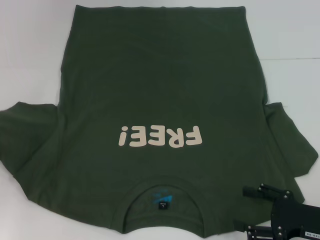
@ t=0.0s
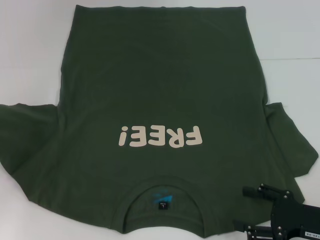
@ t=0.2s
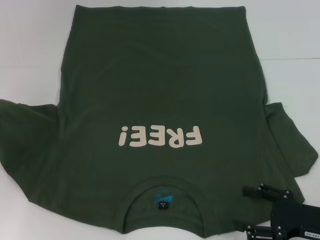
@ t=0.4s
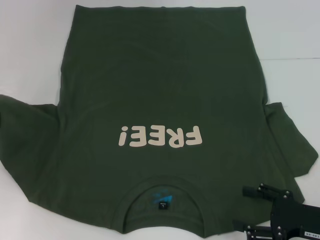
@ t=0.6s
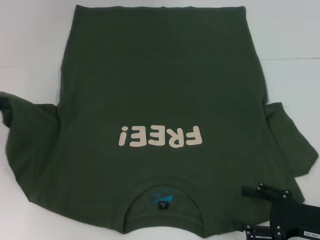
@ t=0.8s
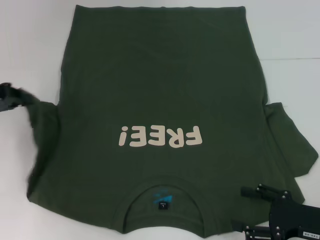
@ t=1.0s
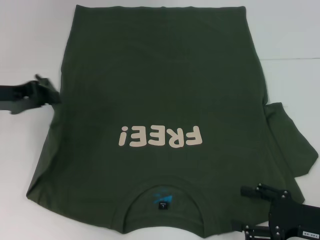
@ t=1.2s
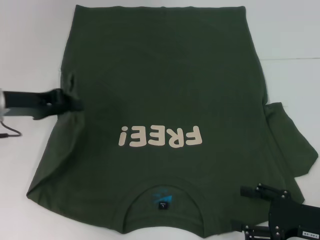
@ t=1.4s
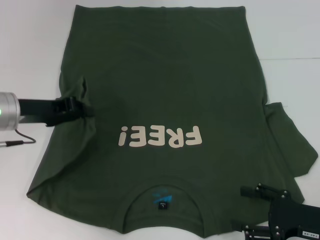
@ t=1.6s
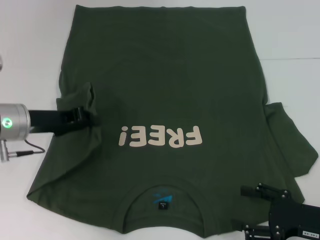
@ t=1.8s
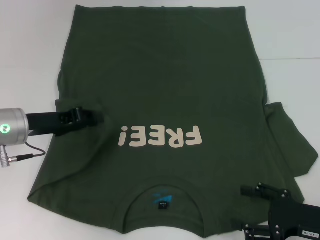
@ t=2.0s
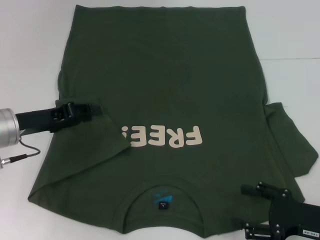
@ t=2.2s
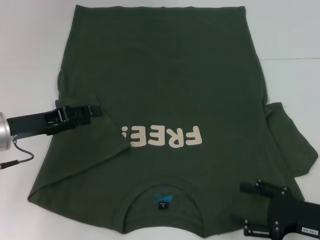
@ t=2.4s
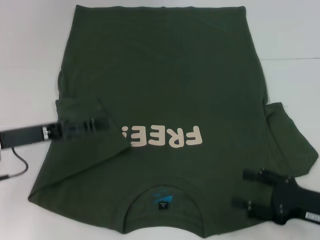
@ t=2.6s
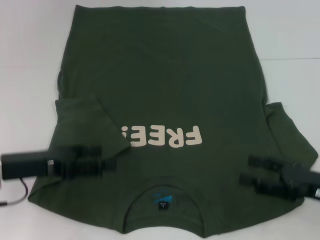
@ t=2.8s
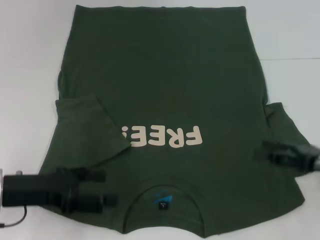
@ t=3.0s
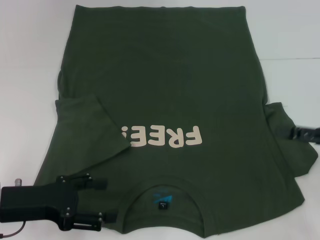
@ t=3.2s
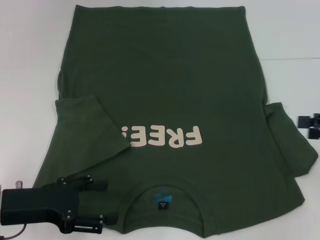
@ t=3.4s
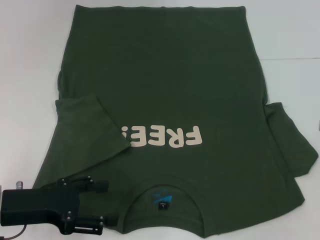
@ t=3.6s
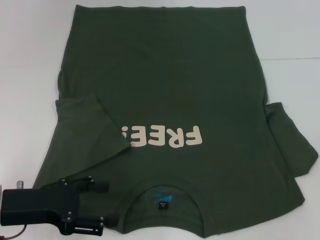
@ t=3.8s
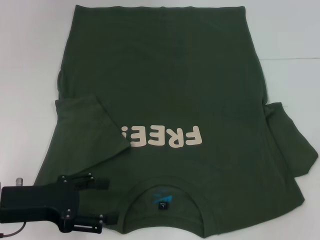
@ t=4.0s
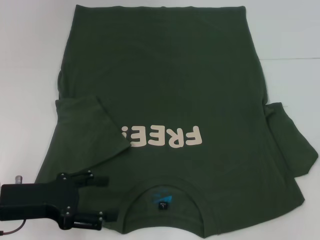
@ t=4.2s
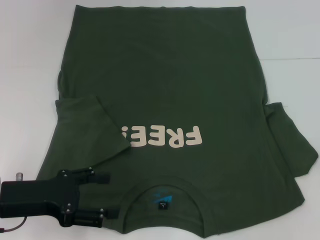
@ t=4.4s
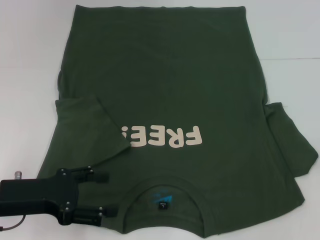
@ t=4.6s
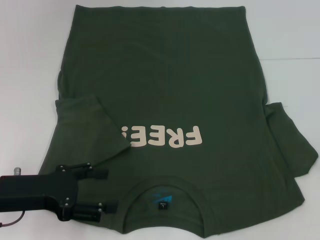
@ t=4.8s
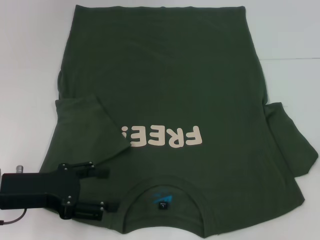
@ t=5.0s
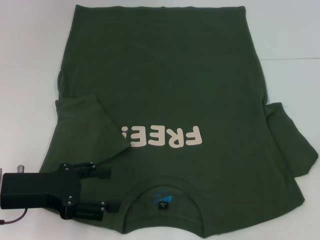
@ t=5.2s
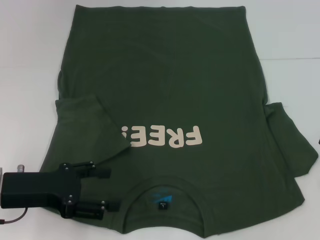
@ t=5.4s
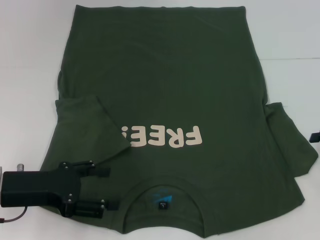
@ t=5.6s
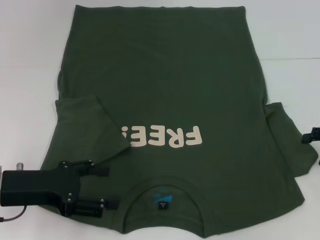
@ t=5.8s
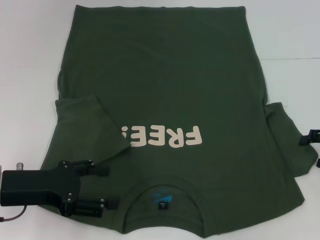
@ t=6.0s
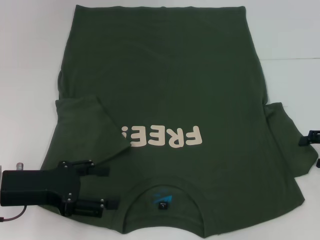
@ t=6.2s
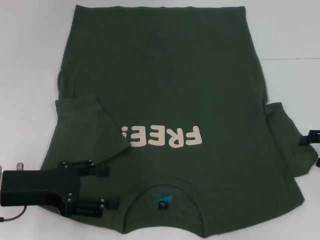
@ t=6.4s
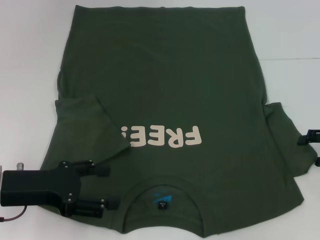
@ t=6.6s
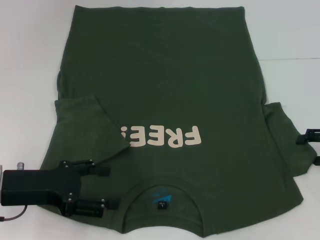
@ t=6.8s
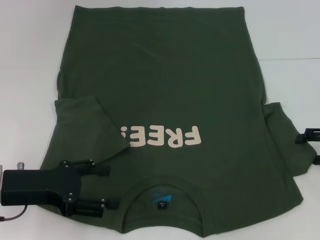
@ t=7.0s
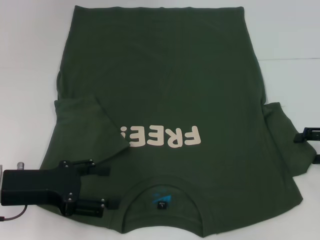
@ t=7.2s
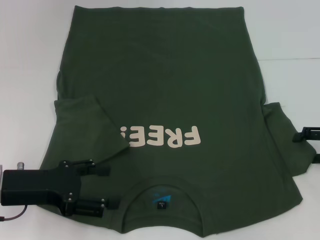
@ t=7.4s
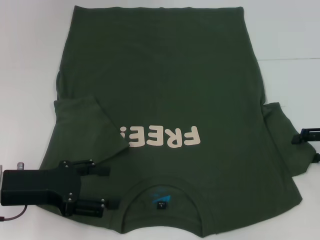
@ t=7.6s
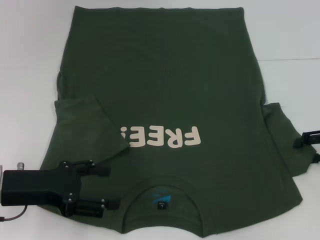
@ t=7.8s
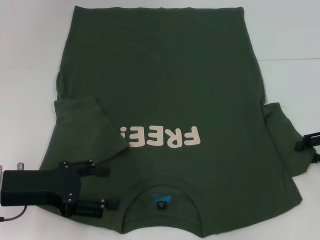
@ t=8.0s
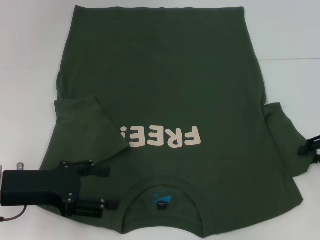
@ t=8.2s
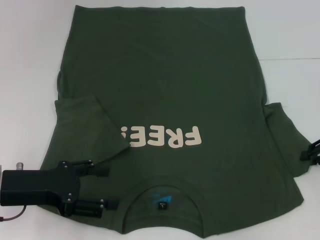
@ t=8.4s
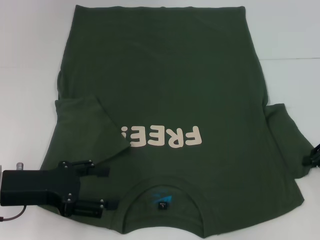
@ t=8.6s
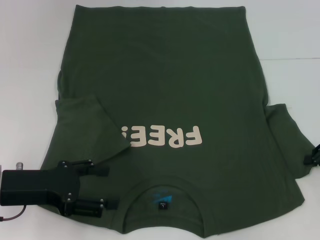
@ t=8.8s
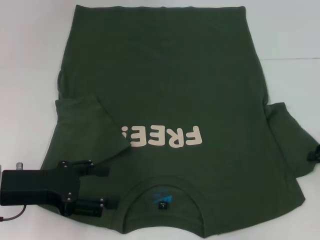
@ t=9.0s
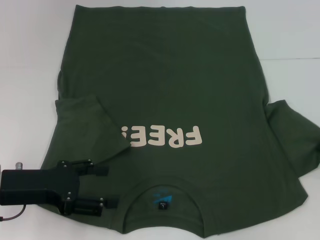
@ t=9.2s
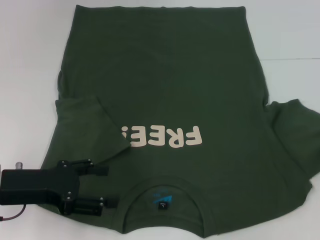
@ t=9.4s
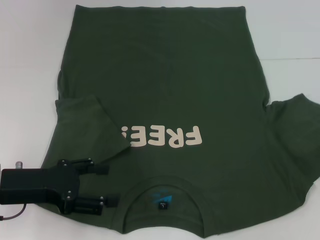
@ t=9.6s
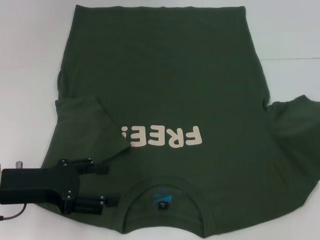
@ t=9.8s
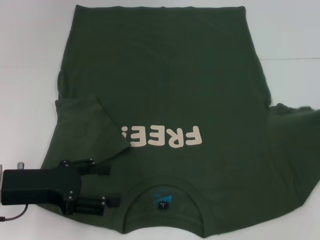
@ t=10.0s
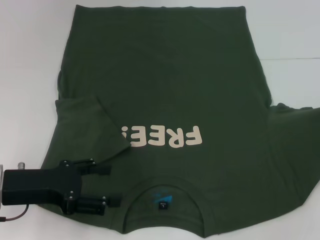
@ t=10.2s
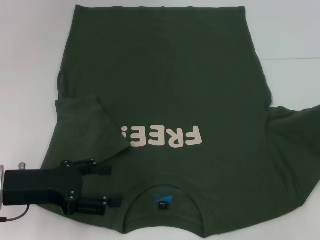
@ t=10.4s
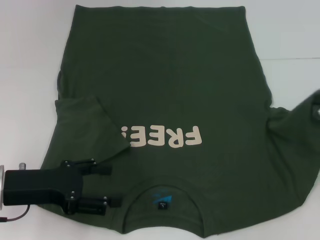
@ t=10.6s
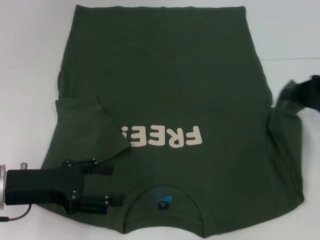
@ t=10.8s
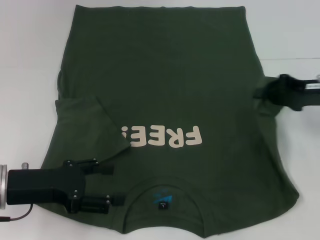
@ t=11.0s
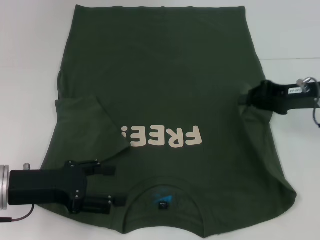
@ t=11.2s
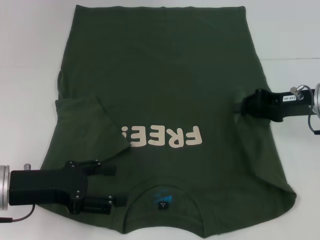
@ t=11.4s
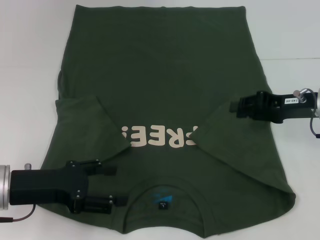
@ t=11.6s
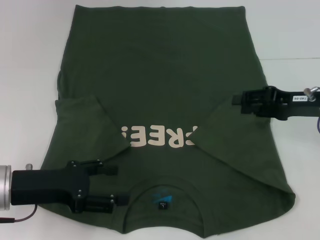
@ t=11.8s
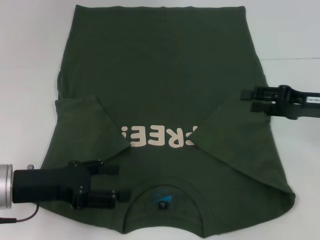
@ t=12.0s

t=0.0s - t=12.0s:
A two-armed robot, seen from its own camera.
Step, t=0.0s - t=2.2s: Fold the bottom left sleeve with your left hand.
Step, t=2.4s - t=11.6s: Fold the bottom right sleeve with your right hand.
t=0.0s - t=1.6s: The left gripper shifts some 15 cm to the right.
t=1.6s - t=3.0s: The left gripper moves backward, some 10 cm, and opens up; the right gripper heads upward and forward, covering roughly 10 cm.
t=3.0s - t=4.4s: The right gripper heads to the right, covering roughly 10 cm.
t=6.0s - t=7.6s: The grippers stay close to where they were, moving slightly.
t=7.6s - t=9.0s: The right gripper closes.
t=9.0s - t=10.4s: The right gripper shifts by about 5 cm.
t=10.4s - t=12.0s: The right gripper moves to the left, approximately 10 cm, and opens its fingers.

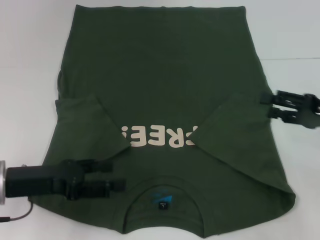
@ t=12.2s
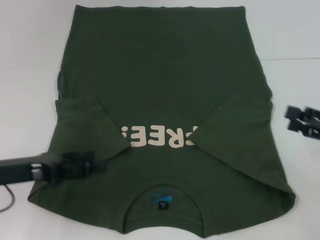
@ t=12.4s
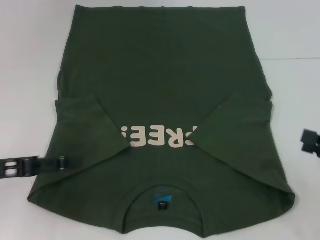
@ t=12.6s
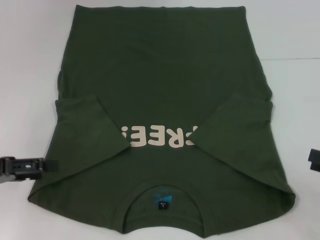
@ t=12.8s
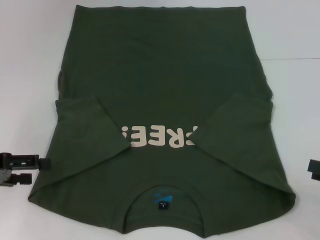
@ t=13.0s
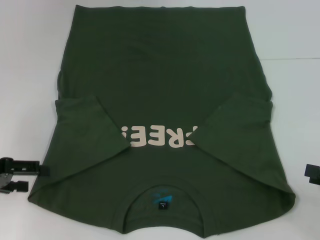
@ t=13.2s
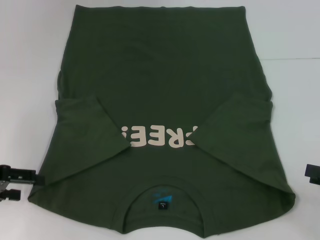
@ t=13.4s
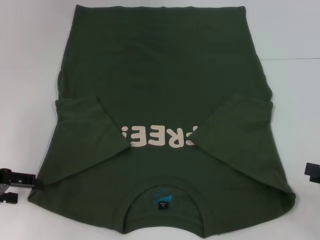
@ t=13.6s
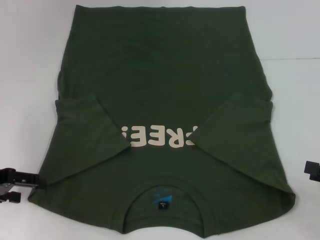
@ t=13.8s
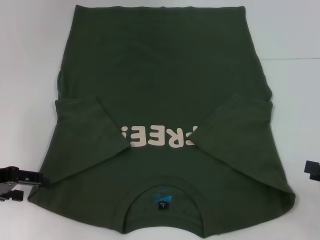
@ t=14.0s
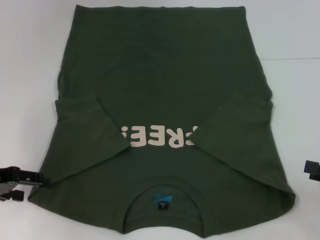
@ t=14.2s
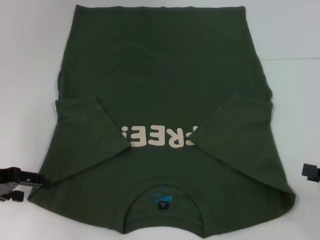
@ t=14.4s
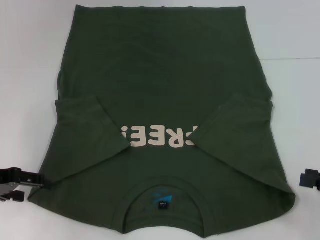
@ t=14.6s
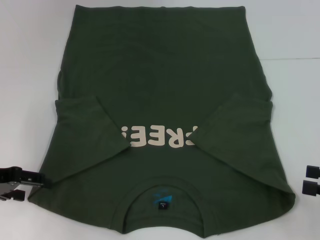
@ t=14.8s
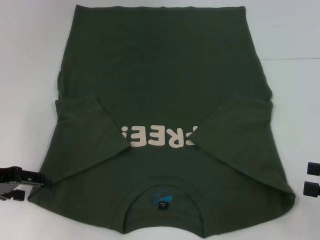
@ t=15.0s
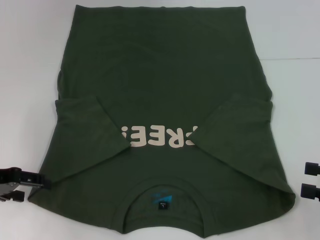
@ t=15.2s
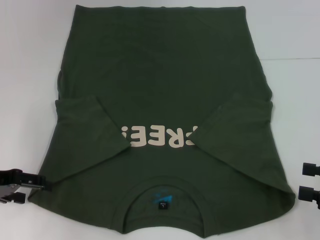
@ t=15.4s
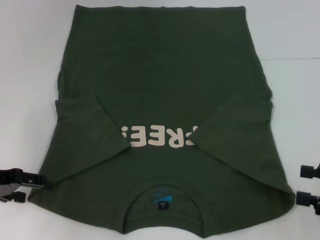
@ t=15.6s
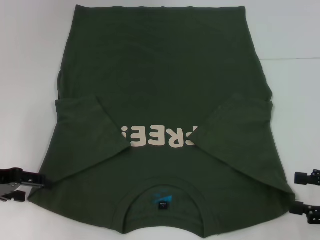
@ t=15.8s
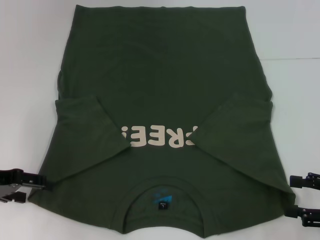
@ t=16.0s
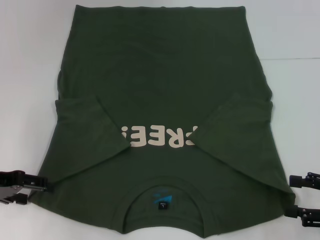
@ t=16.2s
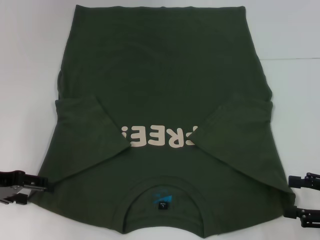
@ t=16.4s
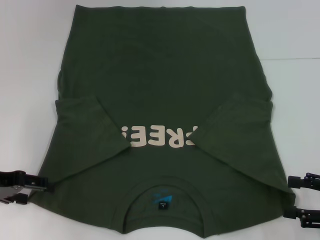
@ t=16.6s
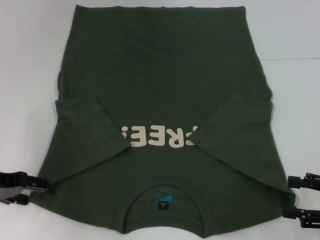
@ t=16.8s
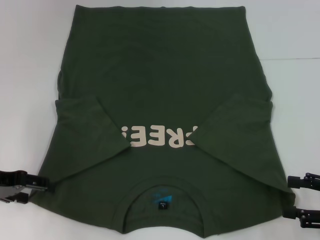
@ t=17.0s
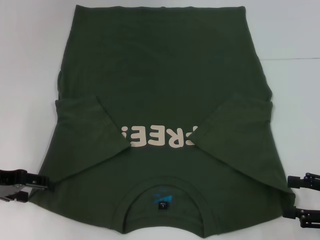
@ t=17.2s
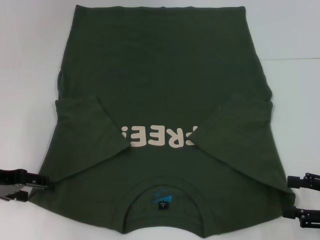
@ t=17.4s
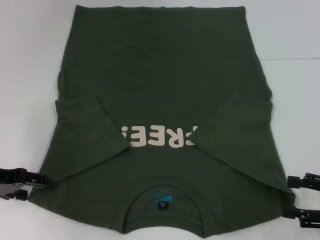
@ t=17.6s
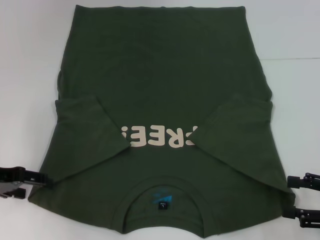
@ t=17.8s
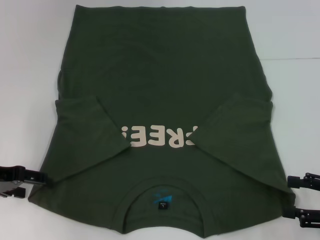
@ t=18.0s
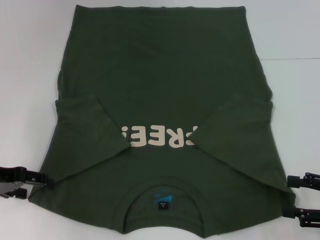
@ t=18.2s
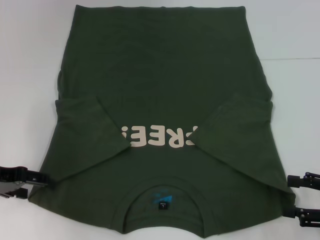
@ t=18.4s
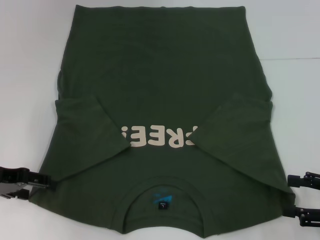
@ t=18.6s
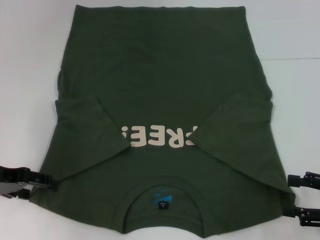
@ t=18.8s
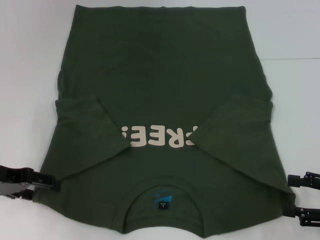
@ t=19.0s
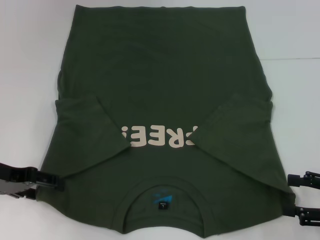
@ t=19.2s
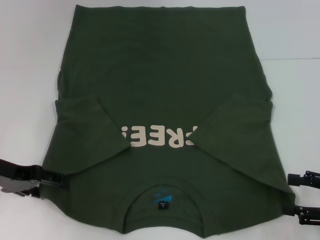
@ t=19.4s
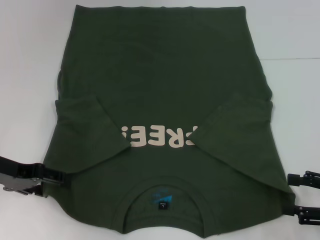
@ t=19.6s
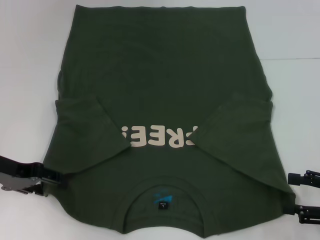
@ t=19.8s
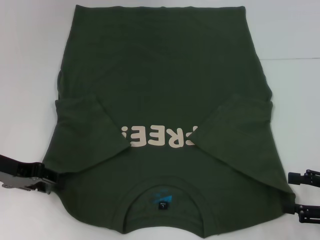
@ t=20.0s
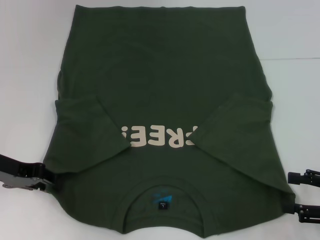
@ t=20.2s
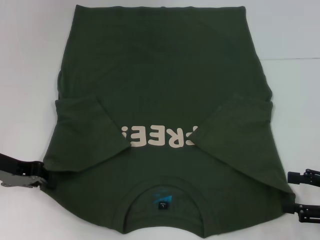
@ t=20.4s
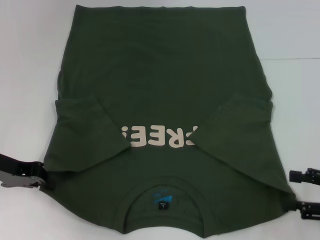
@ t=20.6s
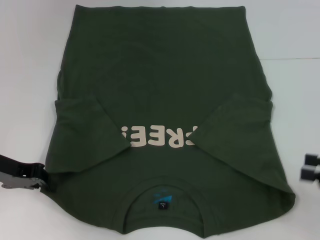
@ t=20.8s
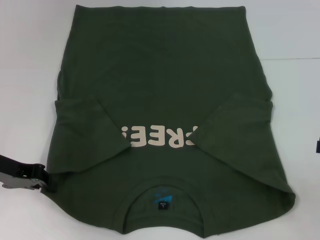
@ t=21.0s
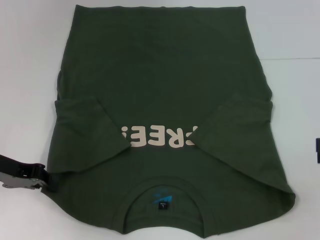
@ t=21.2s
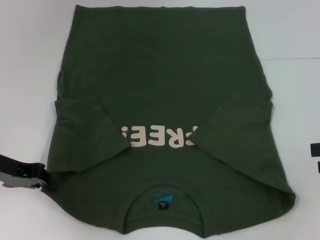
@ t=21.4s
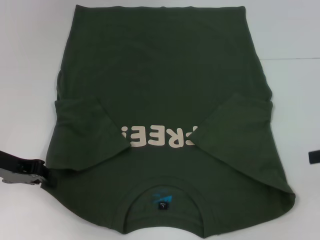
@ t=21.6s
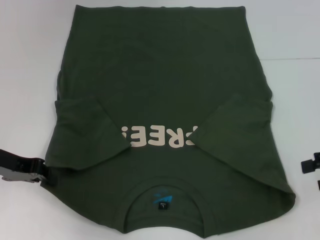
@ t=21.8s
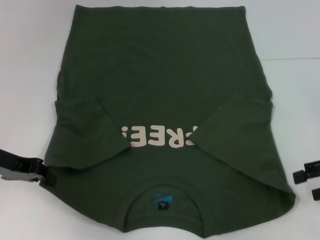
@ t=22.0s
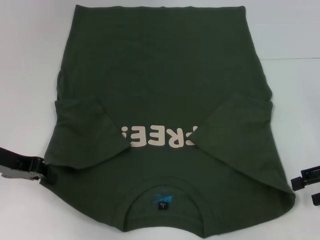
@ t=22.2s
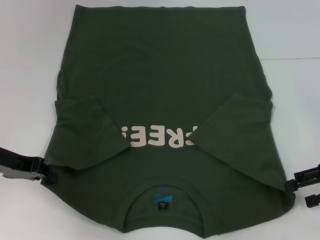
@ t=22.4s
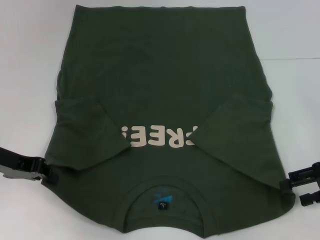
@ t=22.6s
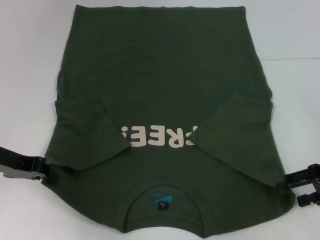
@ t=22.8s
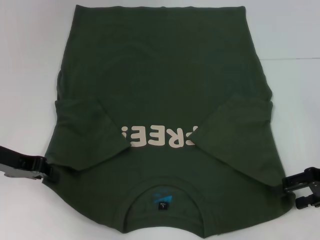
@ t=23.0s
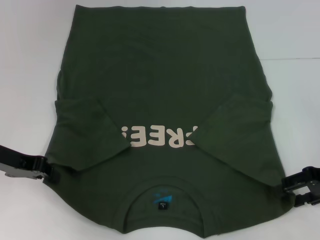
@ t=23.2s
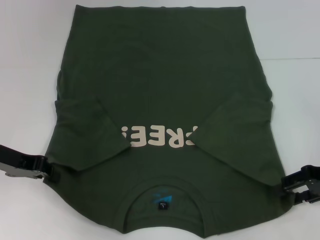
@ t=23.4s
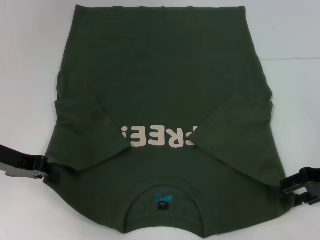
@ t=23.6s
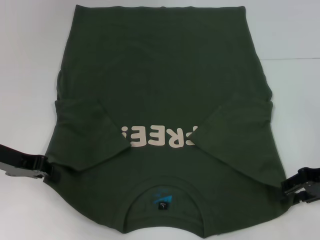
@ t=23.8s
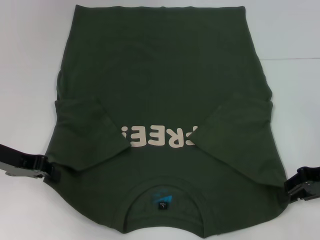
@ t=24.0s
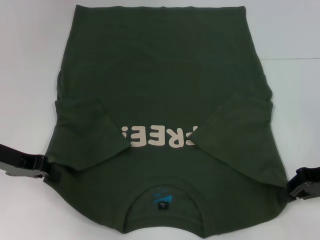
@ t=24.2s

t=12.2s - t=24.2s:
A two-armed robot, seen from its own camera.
Step, t=12.2s - t=20.6s: Grab the bottom left corner with your left hand.
t=12.2s - t=13.8s: The right gripper shifts roughly 10 cm backward and to the right; the left gripper heads to the left, covering about 10 cm.
t=15.2s - t=16.6s: The grippers make only small movements.
t=16.6s - t=18.2s: Both grippers stay put.
t=18.2s - t=19.8s: The grippers move only a little.
t=19.8s - t=21.2s: The left gripper closes up. The right gripper shifts about 5 cm upward.
t=21.2s - t=22.6s: The right gripper shifts by roughly 5 cm.
t=22.6s - t=24.2s: The right gripper closes up.
